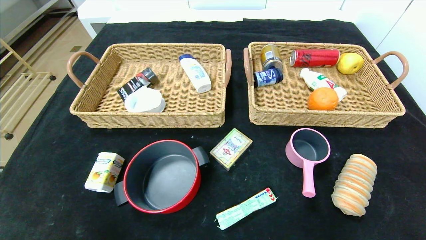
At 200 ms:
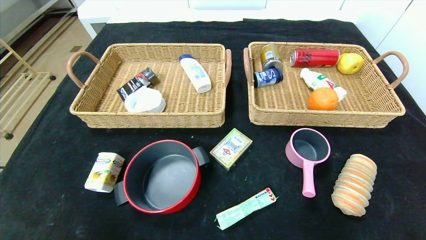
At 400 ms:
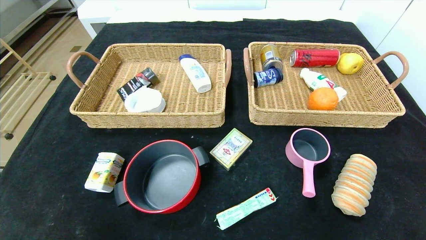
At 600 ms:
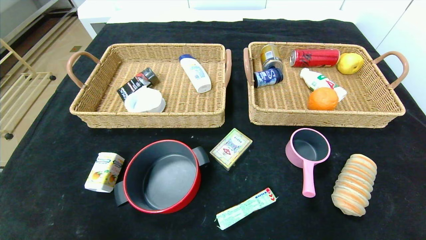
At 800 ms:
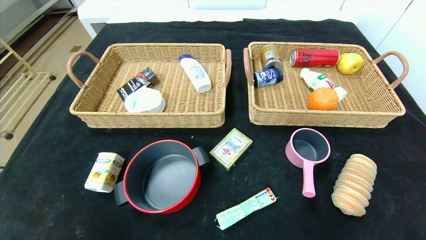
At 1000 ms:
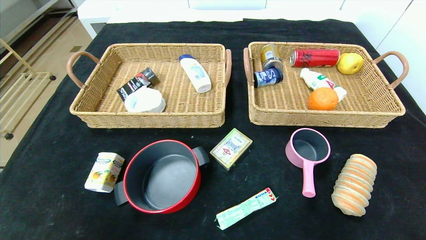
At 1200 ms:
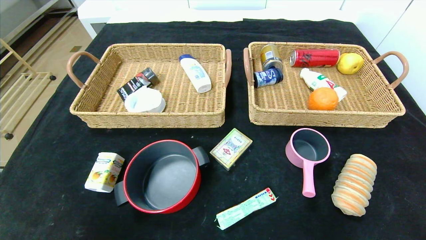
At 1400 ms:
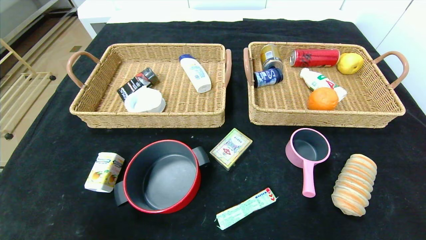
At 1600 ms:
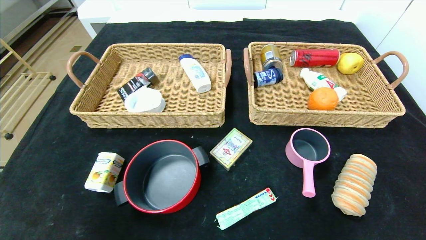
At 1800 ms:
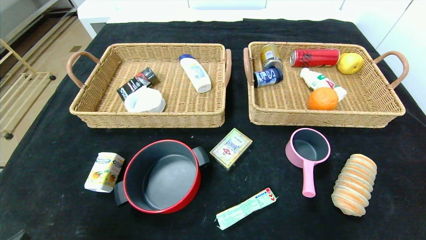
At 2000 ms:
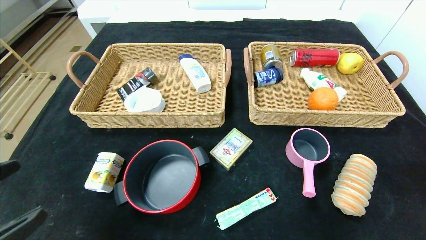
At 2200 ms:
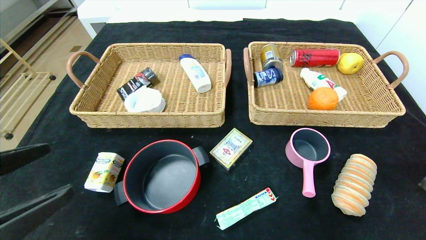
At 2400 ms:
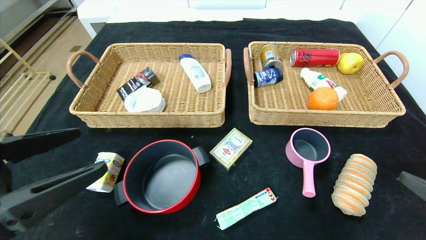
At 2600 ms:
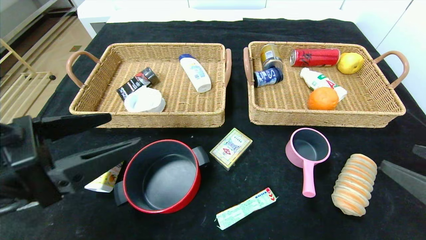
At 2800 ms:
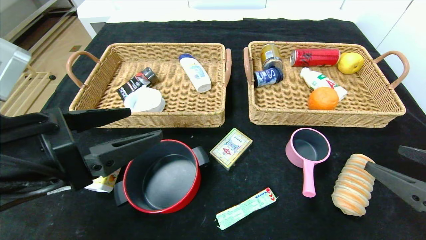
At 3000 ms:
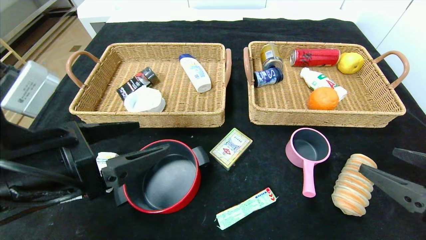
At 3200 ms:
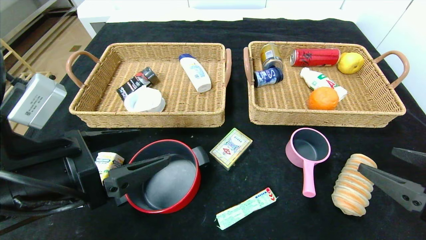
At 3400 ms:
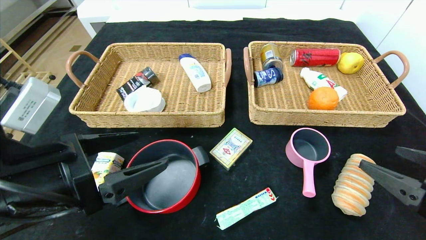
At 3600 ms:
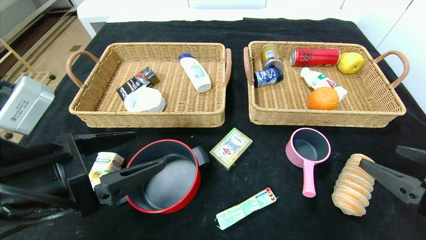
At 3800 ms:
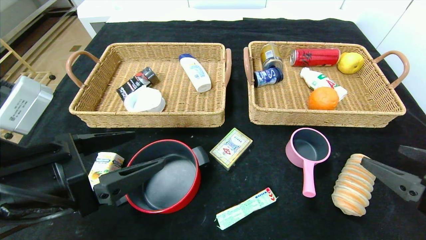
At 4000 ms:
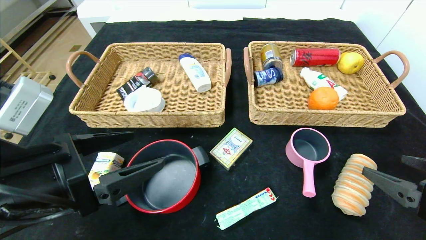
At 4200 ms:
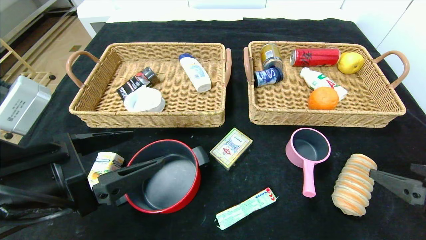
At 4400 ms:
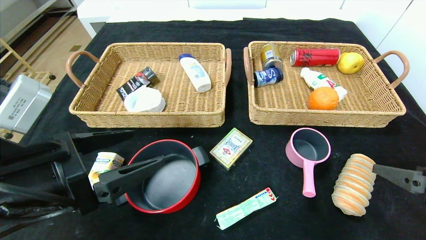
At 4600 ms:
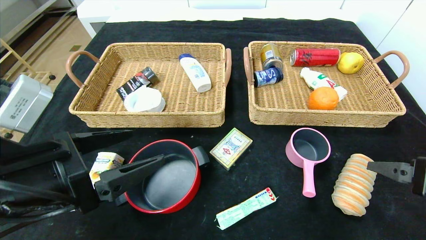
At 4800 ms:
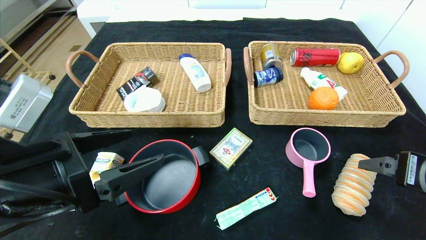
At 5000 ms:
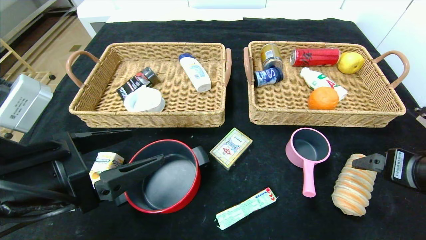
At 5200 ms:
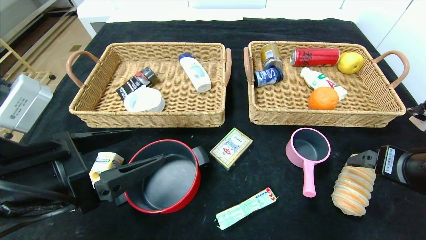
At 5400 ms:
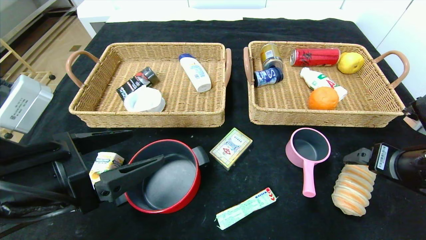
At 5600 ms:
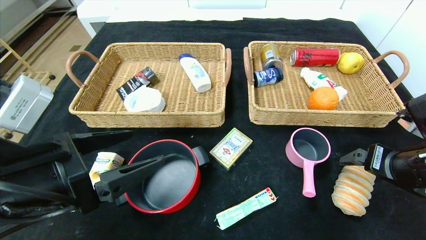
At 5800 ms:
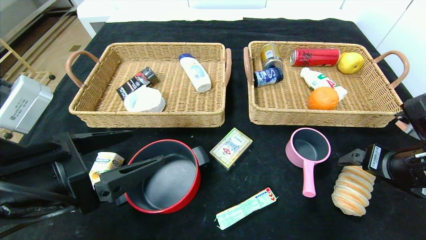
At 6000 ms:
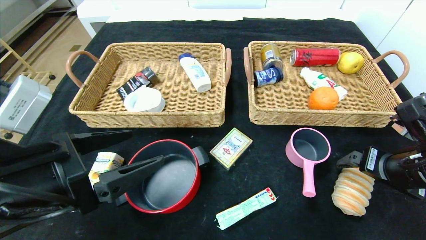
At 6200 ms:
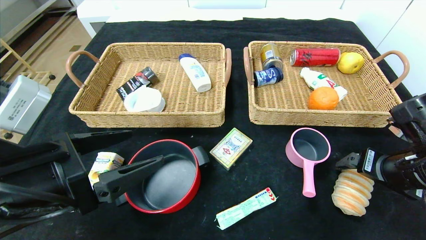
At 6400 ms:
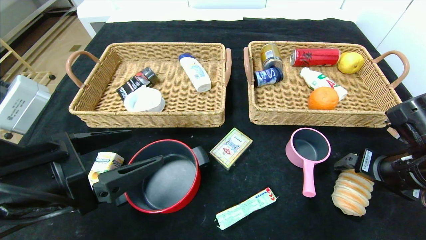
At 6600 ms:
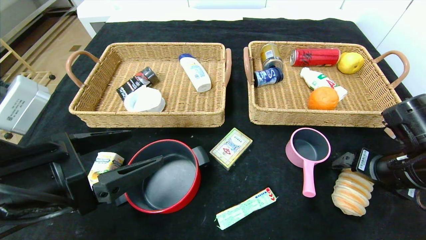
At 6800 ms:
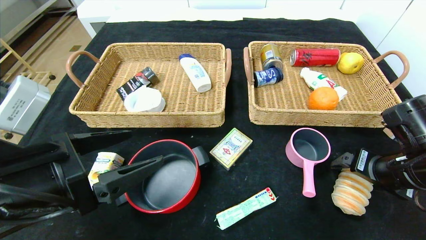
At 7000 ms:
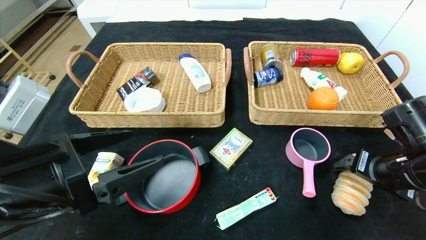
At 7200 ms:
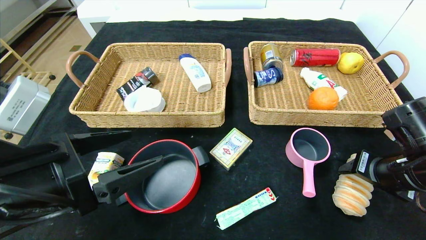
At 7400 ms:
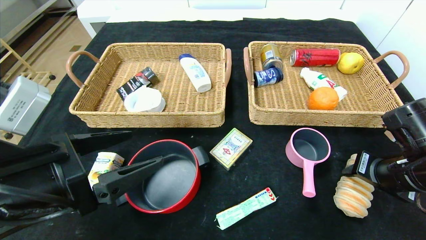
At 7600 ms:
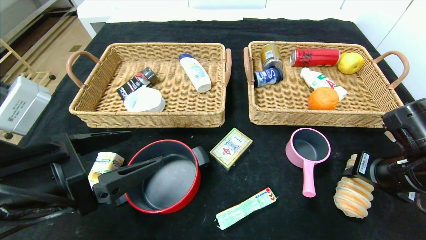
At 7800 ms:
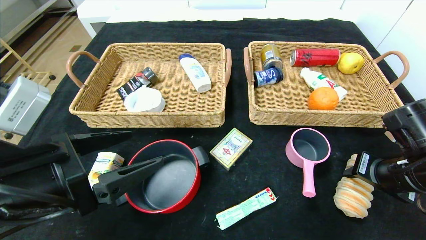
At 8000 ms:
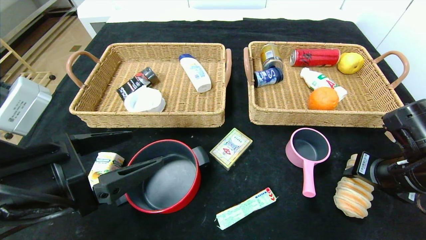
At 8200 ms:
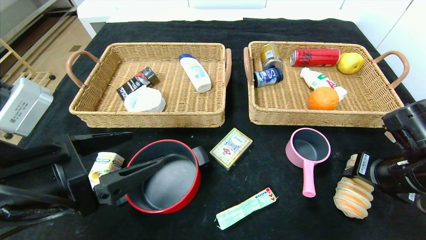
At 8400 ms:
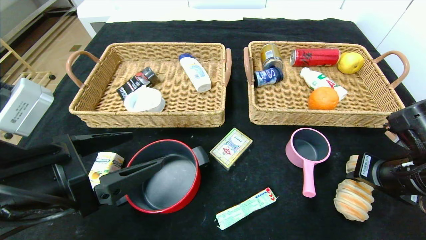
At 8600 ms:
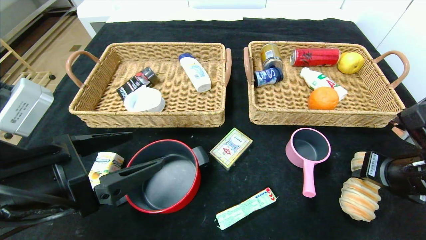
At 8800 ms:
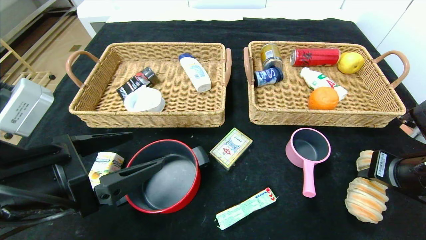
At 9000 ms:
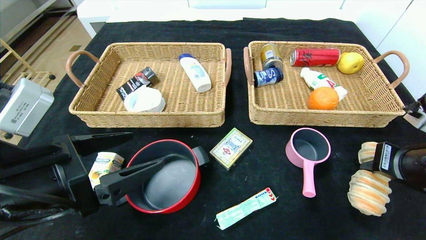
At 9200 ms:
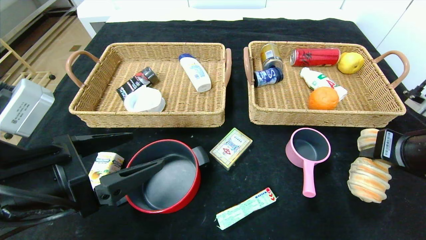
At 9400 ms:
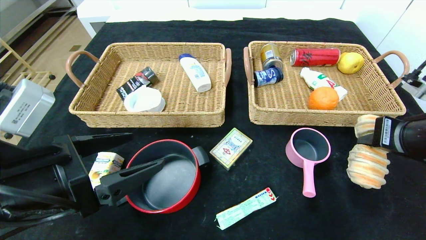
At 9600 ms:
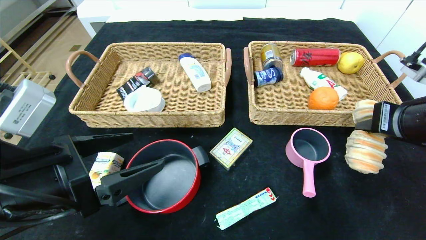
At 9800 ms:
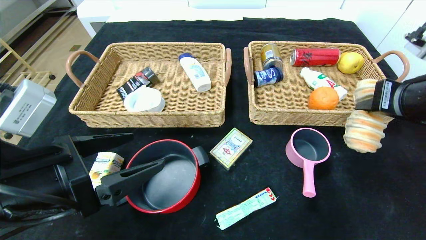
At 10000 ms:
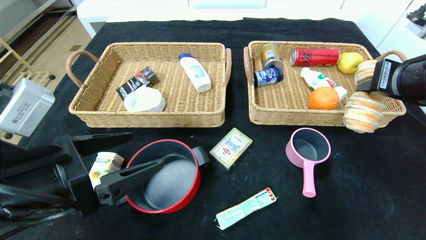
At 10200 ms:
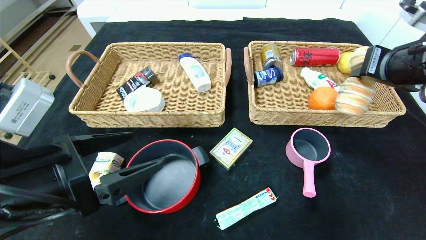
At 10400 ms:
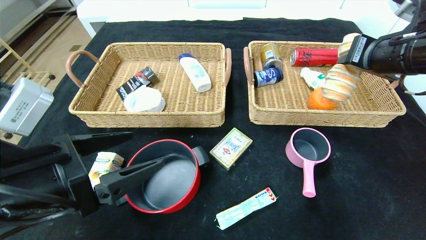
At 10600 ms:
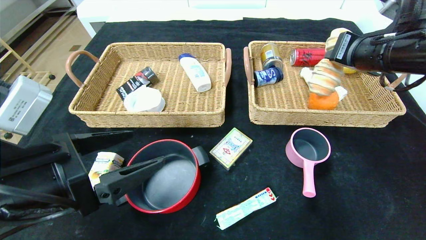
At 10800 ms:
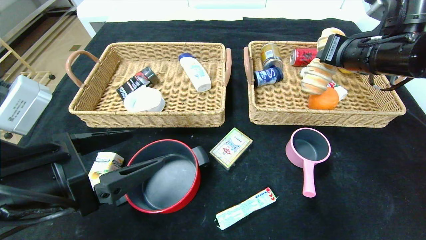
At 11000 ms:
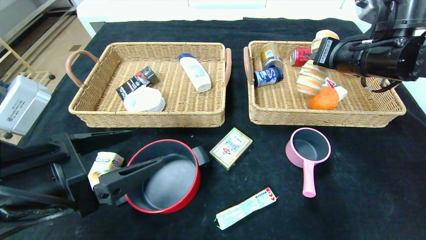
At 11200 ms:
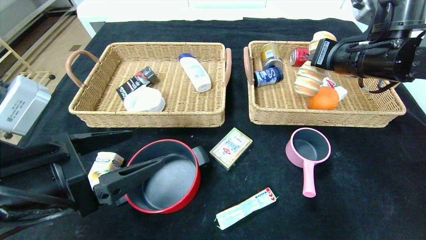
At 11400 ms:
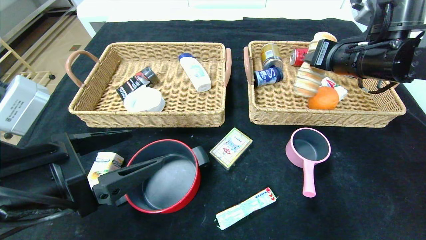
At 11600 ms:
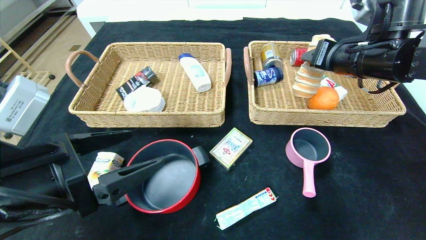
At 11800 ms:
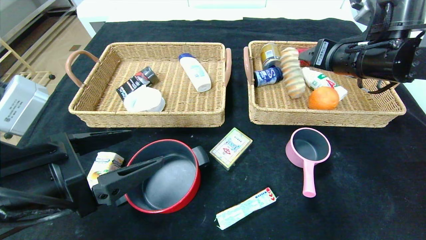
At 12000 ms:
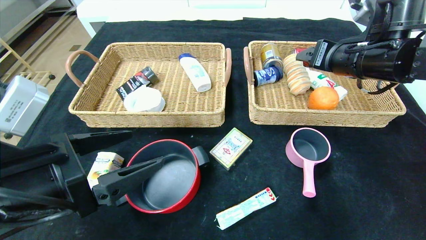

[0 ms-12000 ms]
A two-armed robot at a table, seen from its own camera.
Step, 0 ms to 11800 ms: Grasp the long bread and put it in the right basket.
1600 ms to 3000 ms: The left gripper goes roughly 20 cm forward, to the right and upward. Meanwhile the right gripper shifts about 15 cm forward, to the left and upward.
4400 ms to 6000 ms: The right gripper heads forward, covering about 10 cm.
6000 ms to 7600 ms: The right gripper closes up.
7600 ms to 9000 ms: The right gripper moves some 5 cm.
9000 ms to 10400 ms: The right gripper travels upward and forward by about 15 cm.
10400 ms to 12000 ms: The right gripper shifts by approximately 5 cm, and opens.

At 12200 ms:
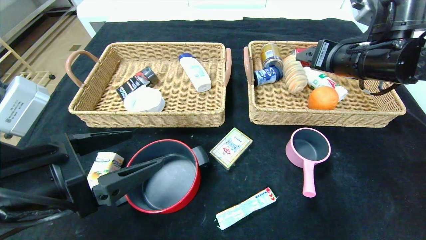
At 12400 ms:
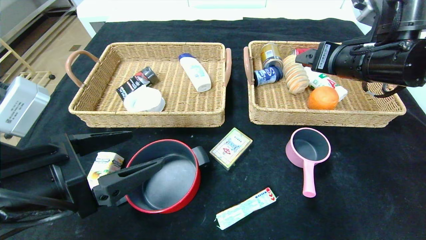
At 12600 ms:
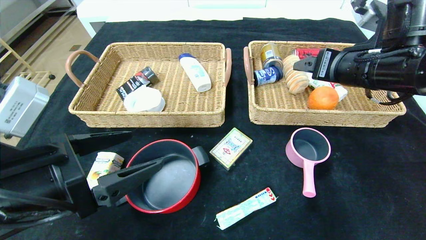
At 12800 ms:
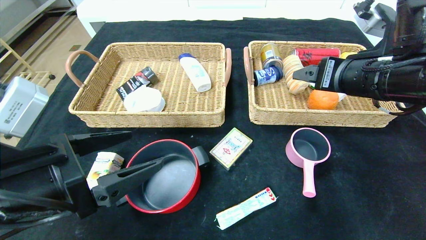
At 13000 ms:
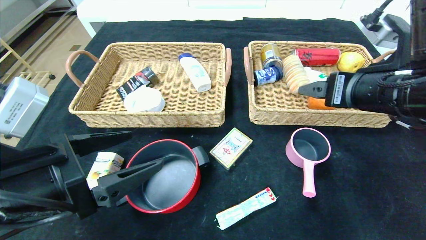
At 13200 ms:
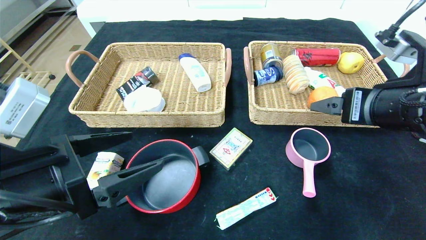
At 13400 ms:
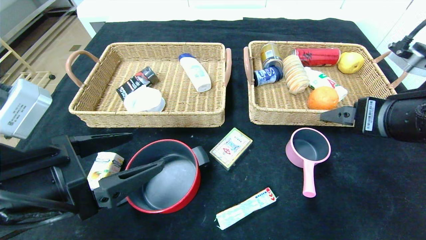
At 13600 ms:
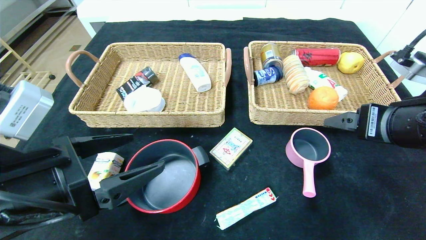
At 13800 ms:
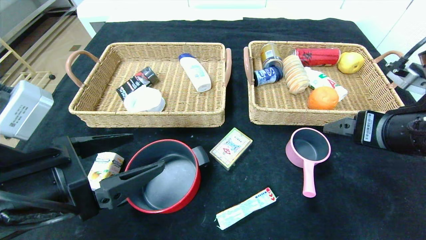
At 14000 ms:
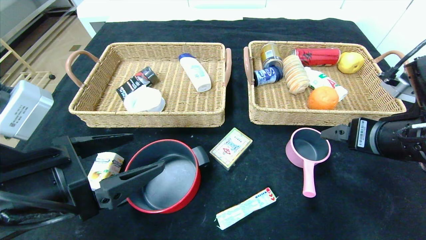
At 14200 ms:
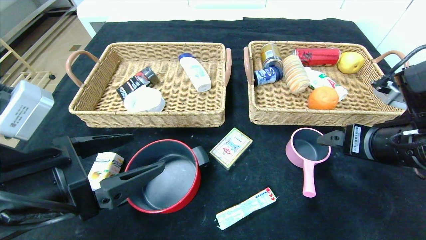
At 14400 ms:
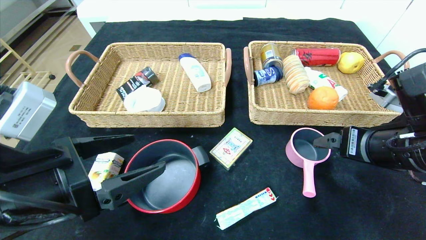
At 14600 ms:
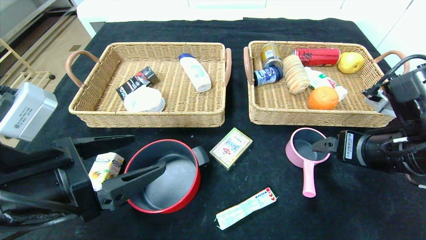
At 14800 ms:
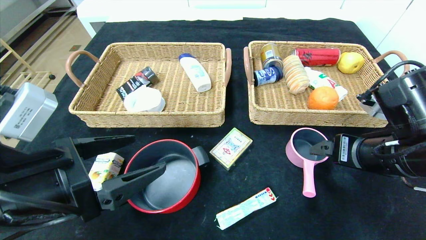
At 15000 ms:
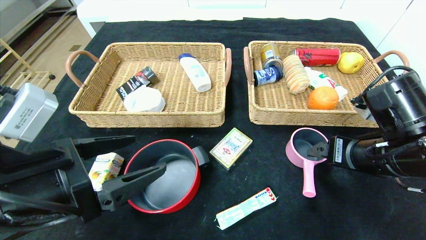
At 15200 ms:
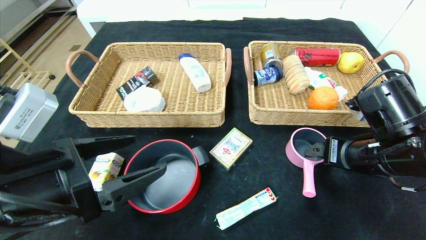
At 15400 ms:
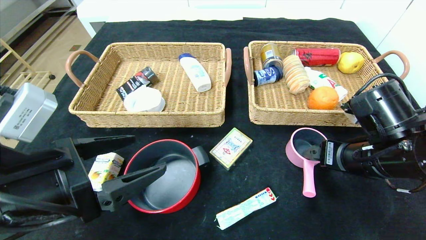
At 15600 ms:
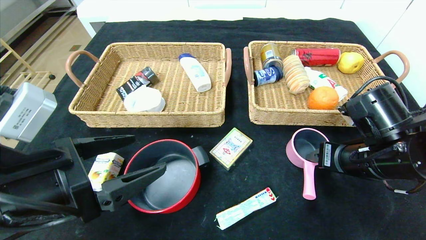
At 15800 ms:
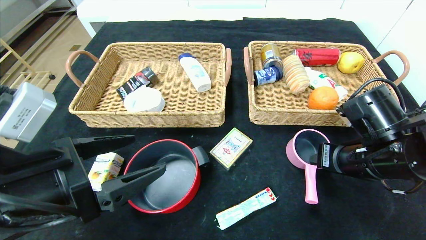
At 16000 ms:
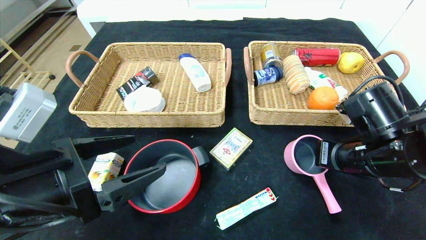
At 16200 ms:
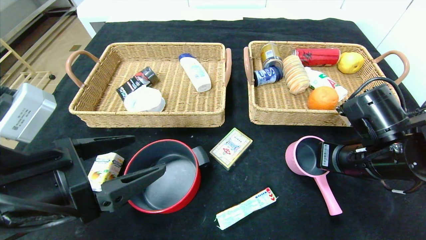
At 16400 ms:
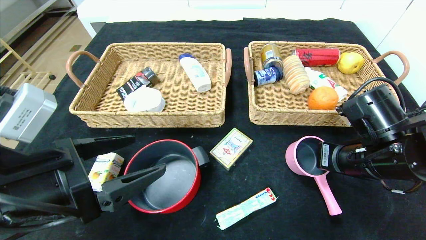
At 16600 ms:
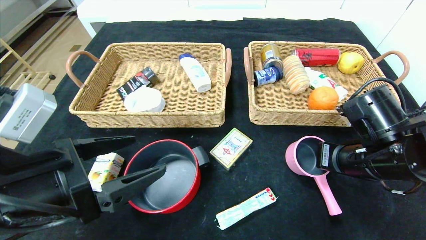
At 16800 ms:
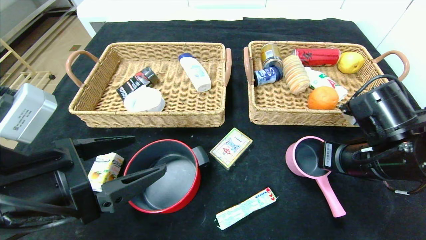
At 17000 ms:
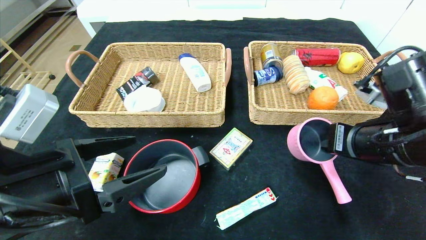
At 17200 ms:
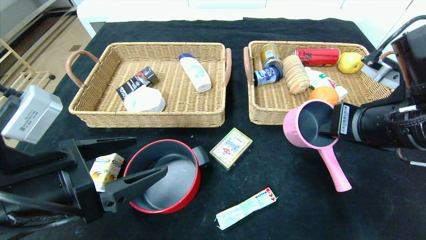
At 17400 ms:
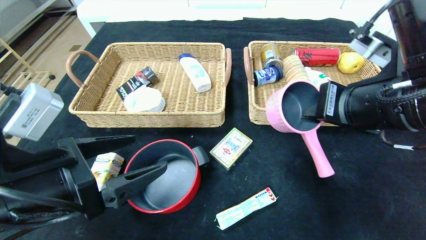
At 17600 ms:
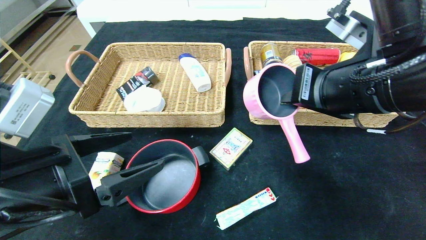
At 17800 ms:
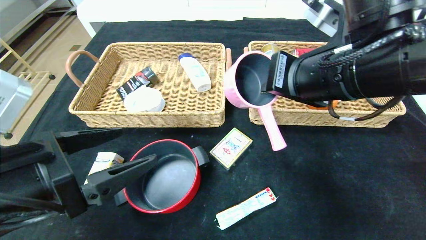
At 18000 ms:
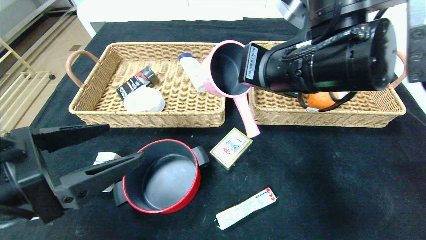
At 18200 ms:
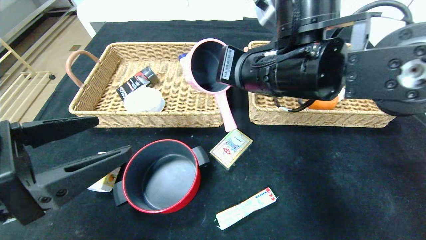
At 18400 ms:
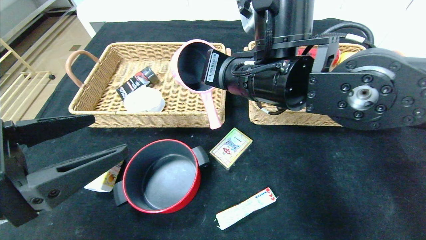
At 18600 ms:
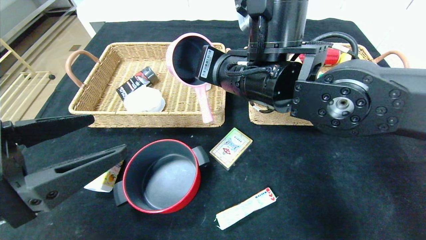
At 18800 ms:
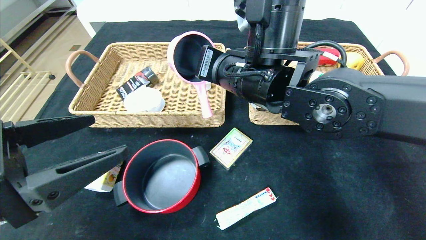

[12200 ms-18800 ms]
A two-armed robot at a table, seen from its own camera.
12200 ms to 13800 ms: The right gripper travels backward and downward by roughly 15 cm.
13800 ms to 15400 ms: The right gripper is displaced downward by about 5 cm.
15400 ms to 17200 ms: The right gripper moves upward, some 5 cm, and closes its fingers.
17200 ms to 18800 ms: The left gripper moves approximately 5 cm. The right gripper heads to the left and forward, covering approximately 20 cm.
